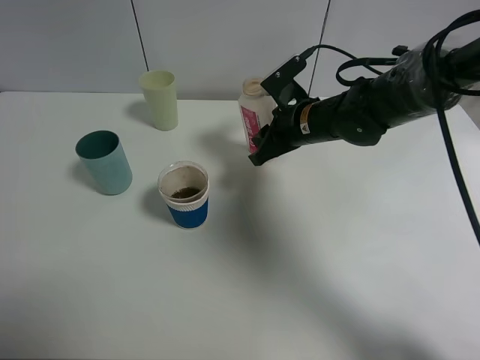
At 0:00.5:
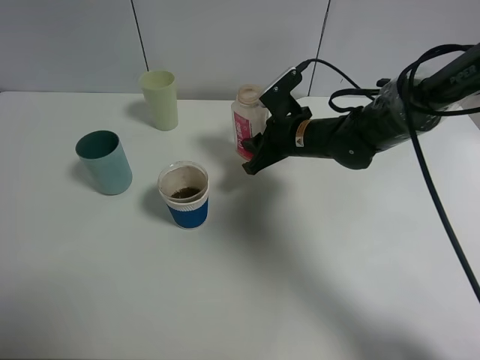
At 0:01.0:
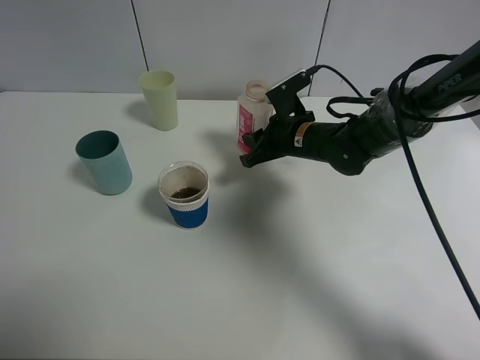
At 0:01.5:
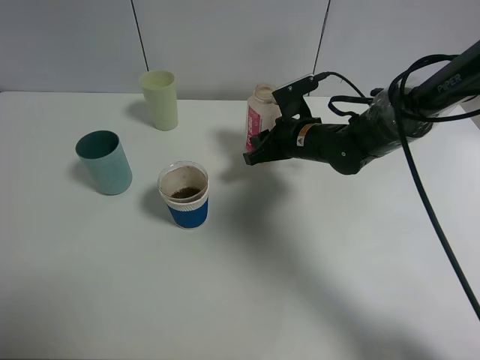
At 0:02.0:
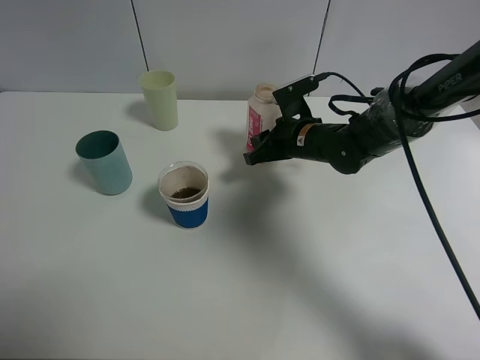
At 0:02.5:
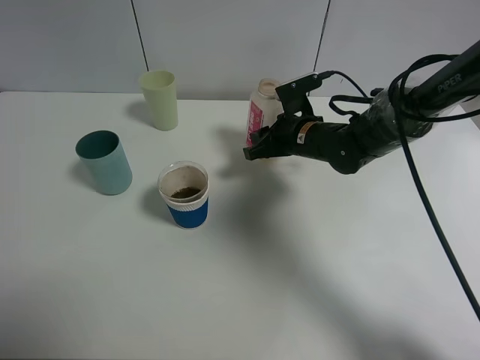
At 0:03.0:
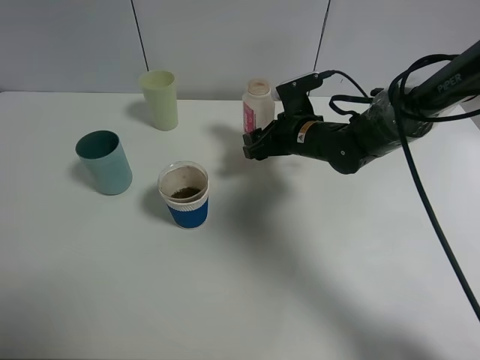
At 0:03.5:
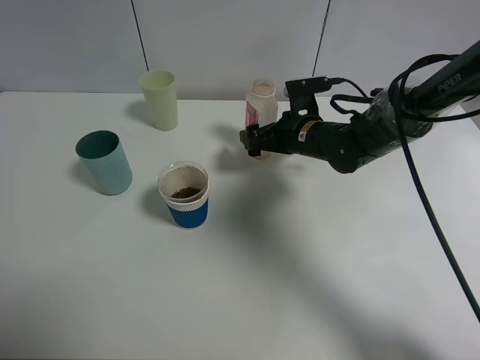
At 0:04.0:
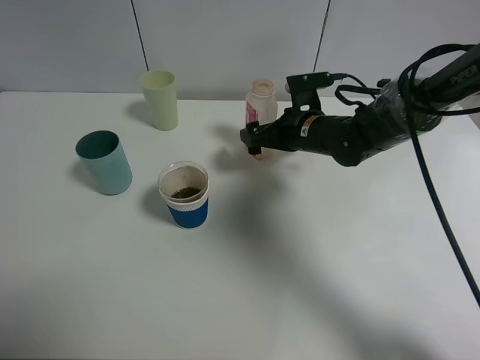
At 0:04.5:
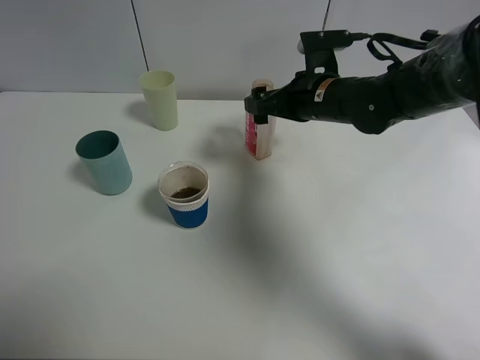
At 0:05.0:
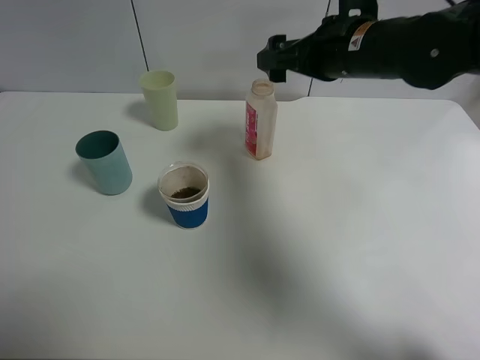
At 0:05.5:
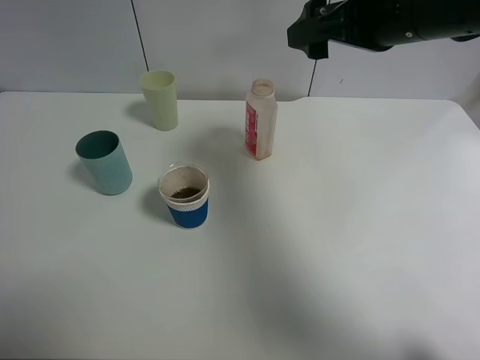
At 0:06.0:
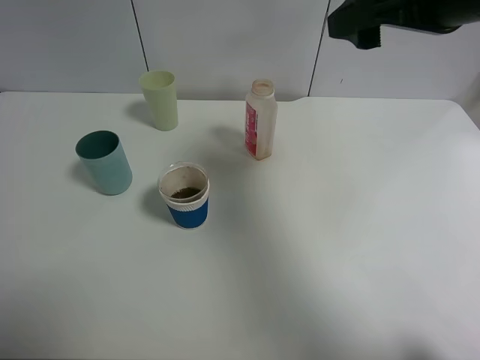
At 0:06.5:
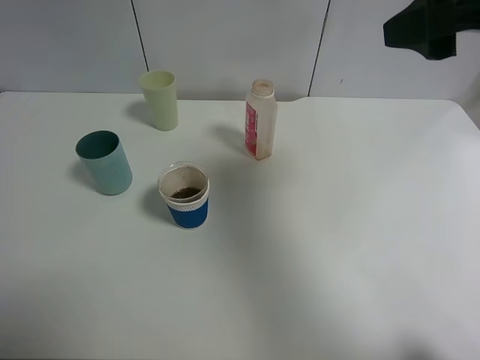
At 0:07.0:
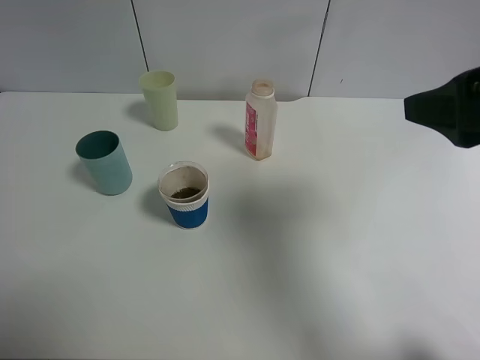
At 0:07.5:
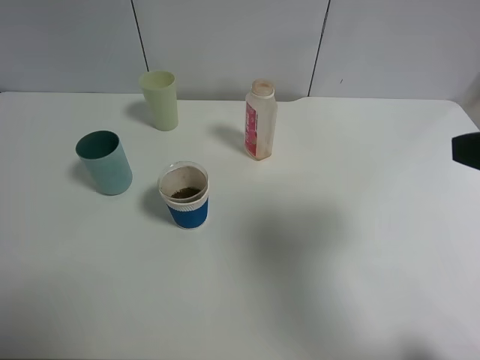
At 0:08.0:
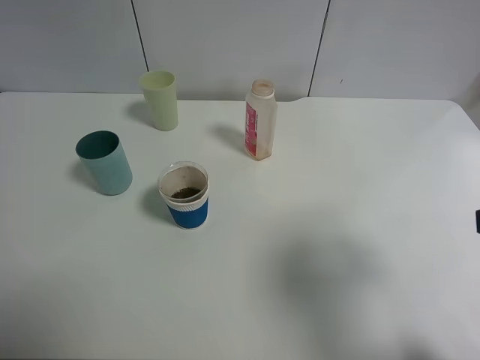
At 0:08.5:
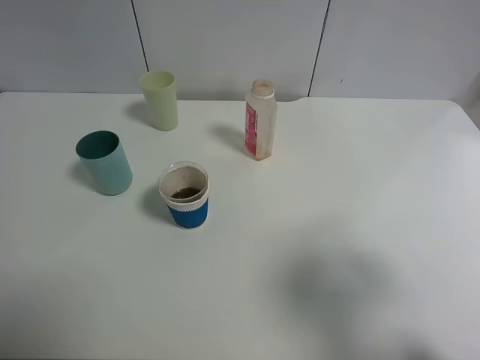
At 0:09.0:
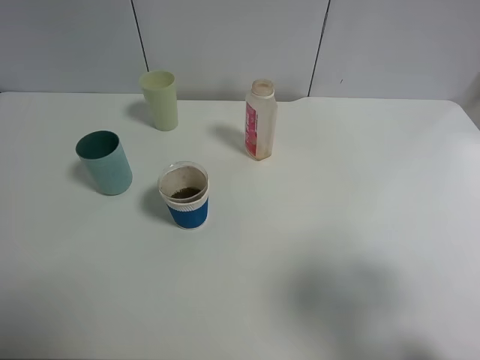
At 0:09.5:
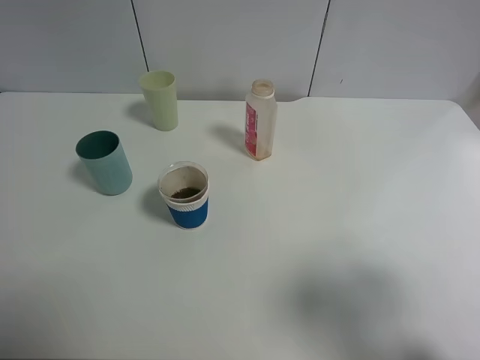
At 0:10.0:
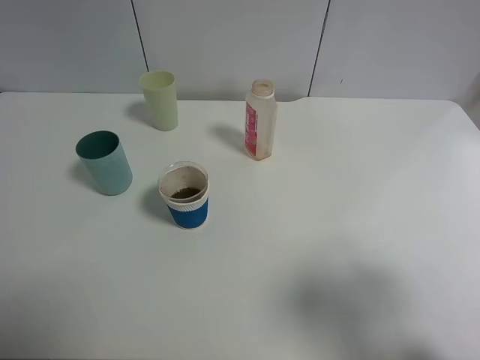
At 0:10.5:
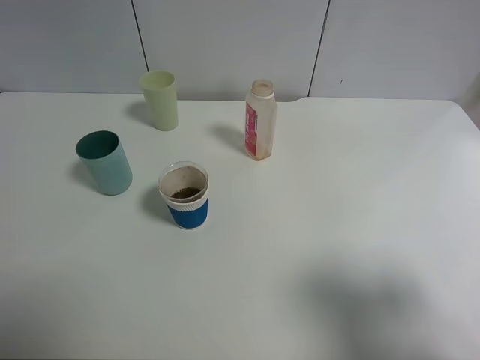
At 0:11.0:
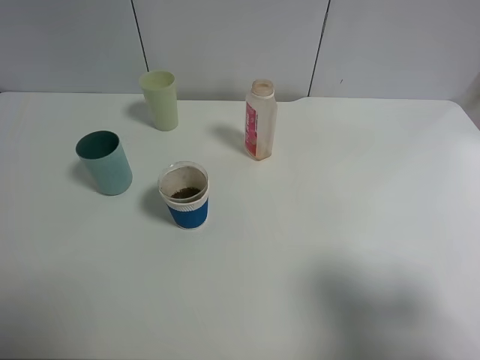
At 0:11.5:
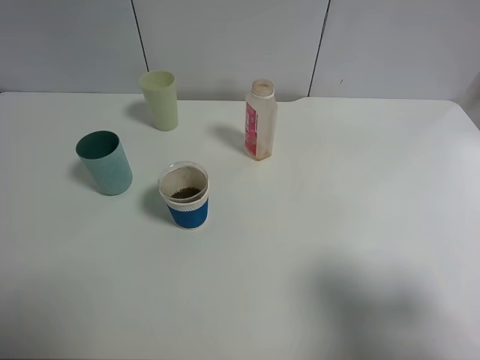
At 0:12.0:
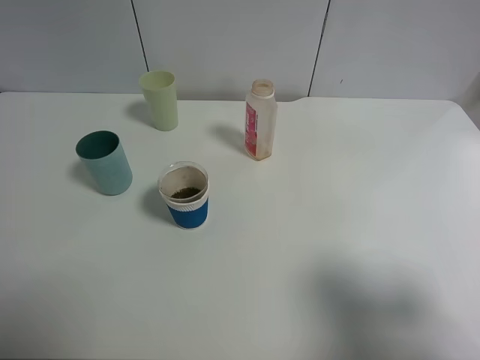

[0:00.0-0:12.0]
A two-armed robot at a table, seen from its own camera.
Task of the whole recording: use a clamp to hold the bottle of the drink, pour the beverage into a random cup, then clamp the cup containing the drink and pour the drink into another random cup.
Step, 0:00.0 to 0:04.0: Place the drink bottle on the table with right gripper.
0:00.0 to 0:02.0: The grippers stay close to where they were, moving slightly.
0:02.0 to 0:04.0: The right gripper opens its fingers.
0:04.0 to 0:06.0: The right gripper is displaced upward and backward by some 25 cm.
0:06.0 to 0:08.0: The right gripper shifts some 20 cm backward and to the right.
0:08.0 to 0:10.0: The right gripper shifts by approximately 5 cm.

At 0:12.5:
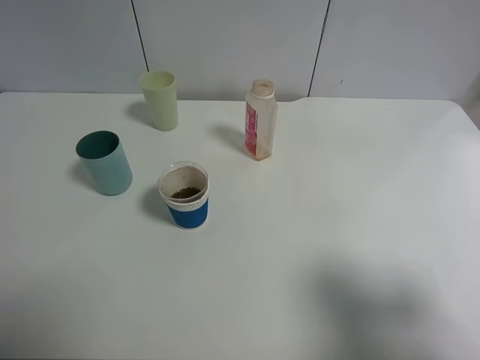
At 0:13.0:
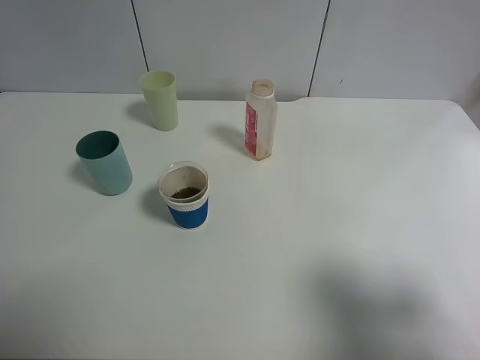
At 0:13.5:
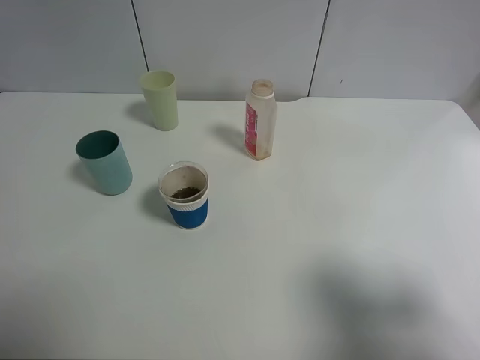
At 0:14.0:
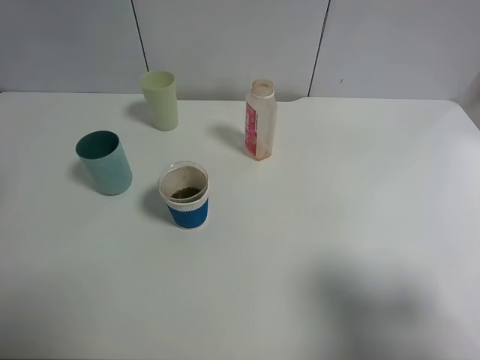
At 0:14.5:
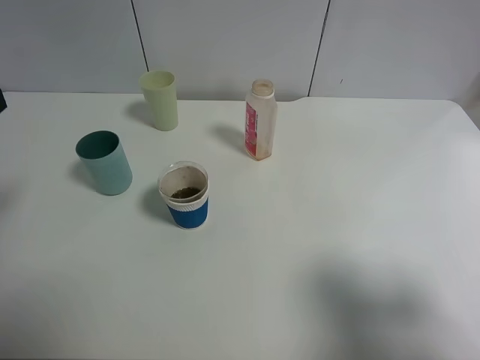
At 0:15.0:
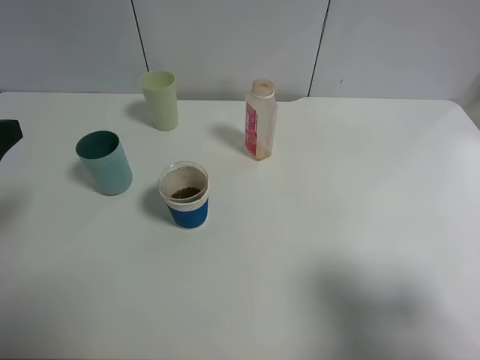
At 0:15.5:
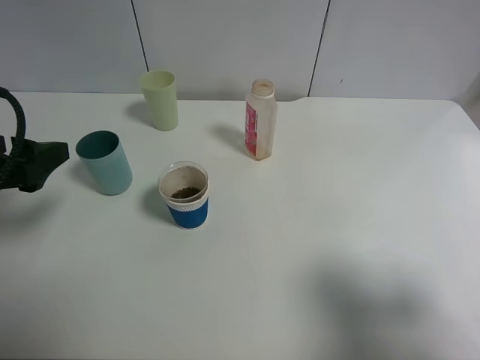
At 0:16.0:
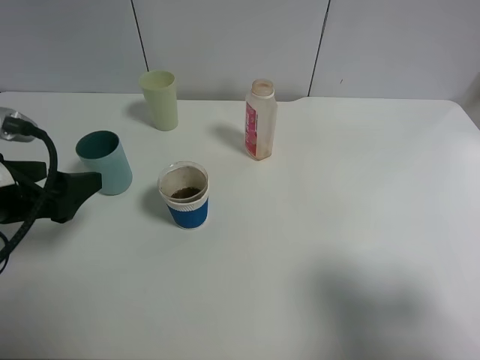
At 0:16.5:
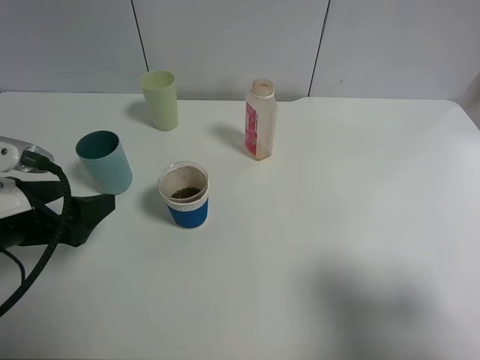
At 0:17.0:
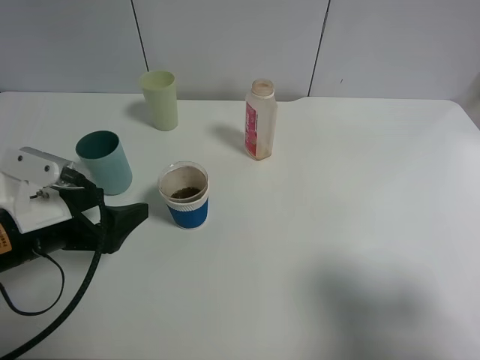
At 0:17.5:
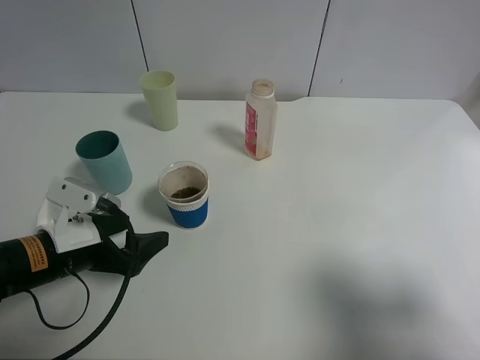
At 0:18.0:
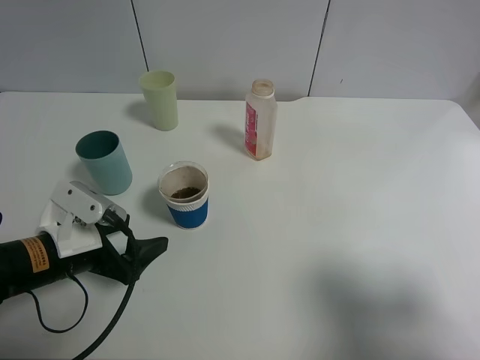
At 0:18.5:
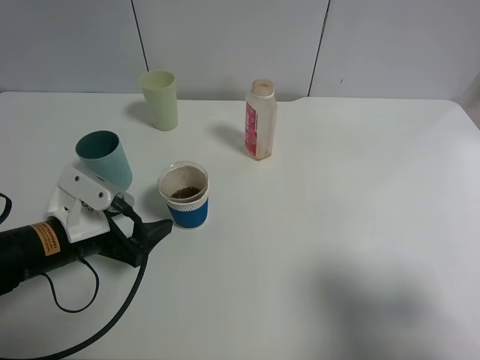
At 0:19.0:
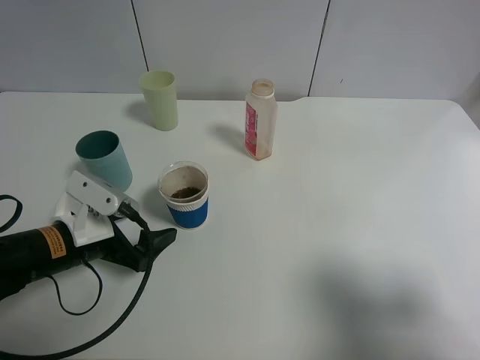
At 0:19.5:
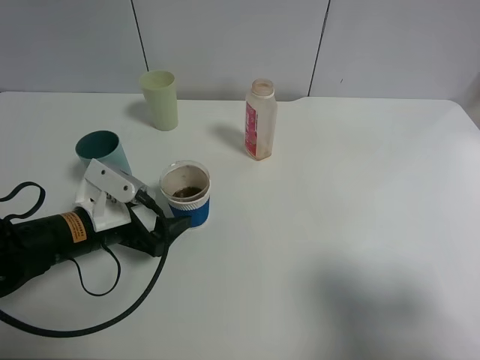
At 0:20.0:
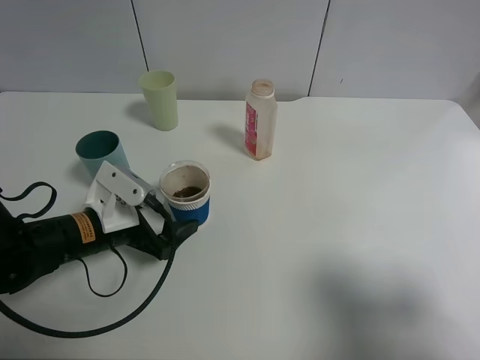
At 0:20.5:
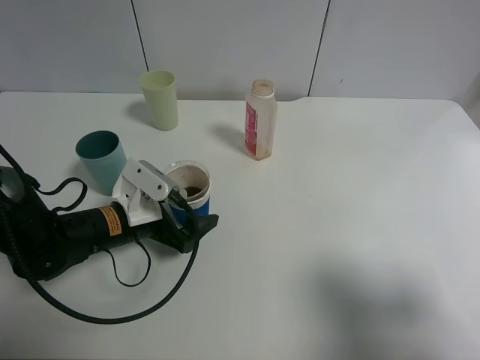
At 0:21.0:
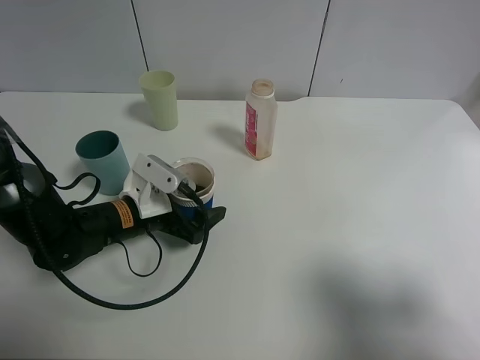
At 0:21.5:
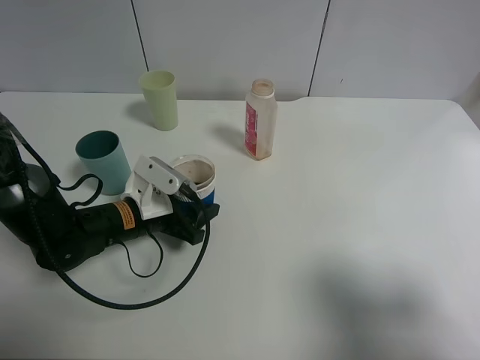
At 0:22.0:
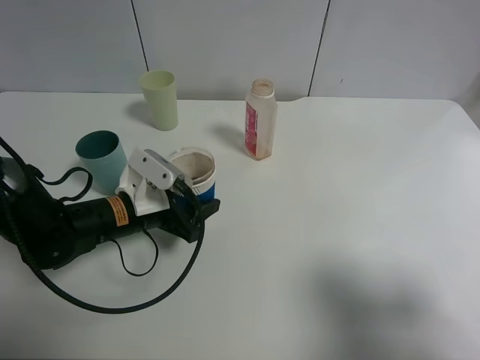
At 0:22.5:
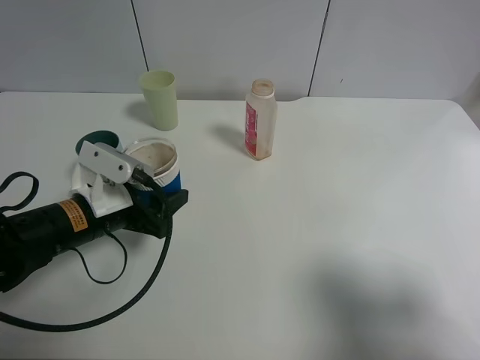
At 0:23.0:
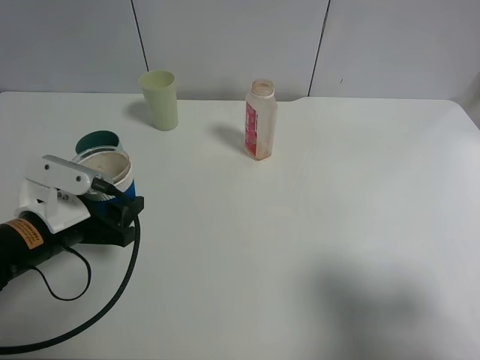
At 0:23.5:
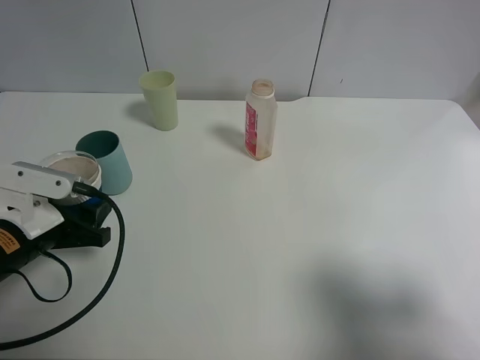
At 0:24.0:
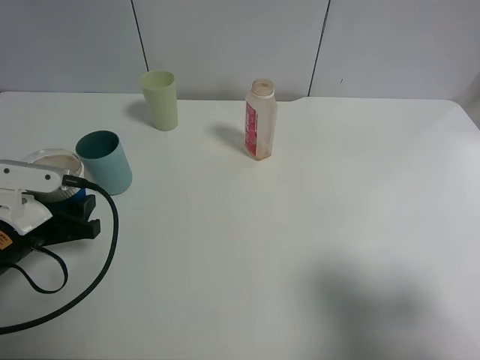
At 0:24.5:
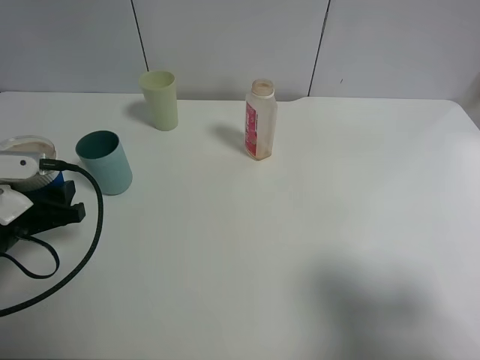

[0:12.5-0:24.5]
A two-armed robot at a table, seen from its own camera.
Task of the whole recording: use a clamp to hold the bottle of the drink, pour the beverage into a random cup, then clamp the cup containing the drink and pour the drink into another random cup.
Step, 0:12.5 to 0:22.0: Pick up the paper cup with left gripper.
0:14.5 to 0:16.5: The left gripper travels downward and to the right by some 10 cm.
0:16.5 to 0:18.5: The left gripper shifts roughly 5 cm downward.
0:18.5 to 0:20.5: The left gripper changes place by some 5 cm.
0:20.5 to 0:22.5: The left gripper ends up roughly 5 cm from where it was, and closes.
0:22.5 to 0:24.5: The left gripper shifts roughly 10 cm to the left.

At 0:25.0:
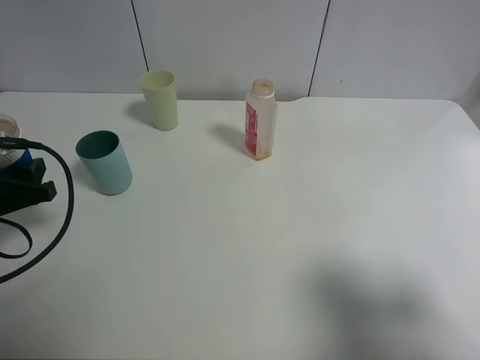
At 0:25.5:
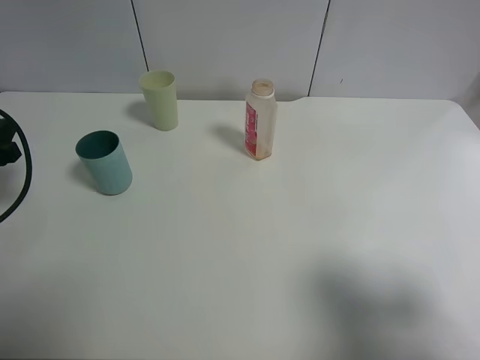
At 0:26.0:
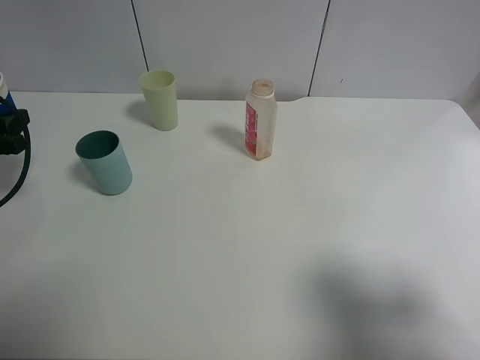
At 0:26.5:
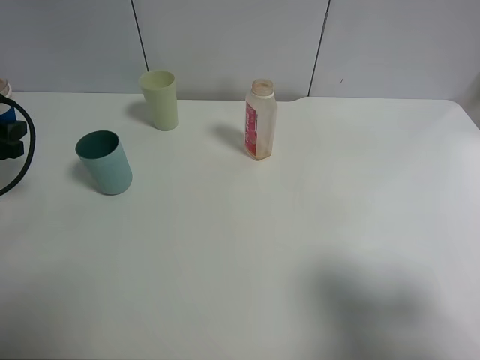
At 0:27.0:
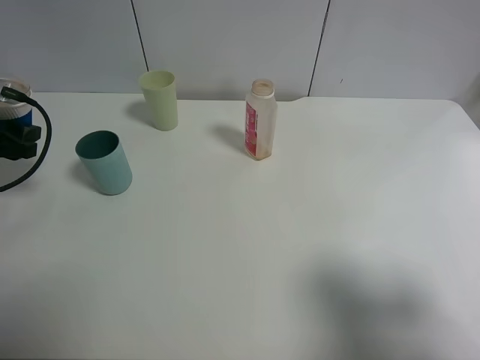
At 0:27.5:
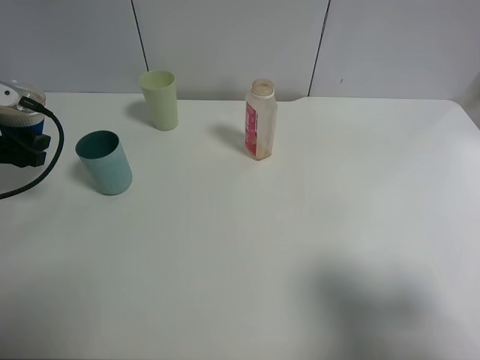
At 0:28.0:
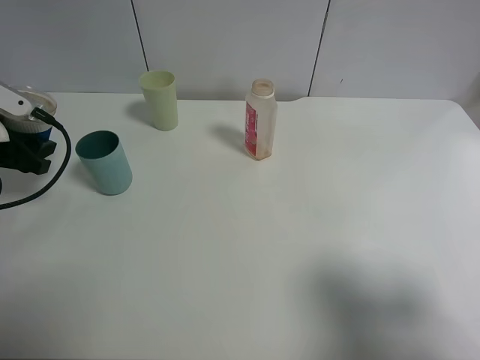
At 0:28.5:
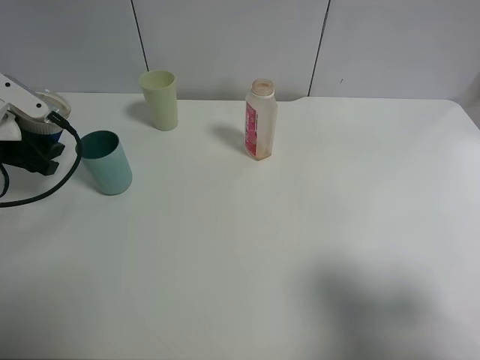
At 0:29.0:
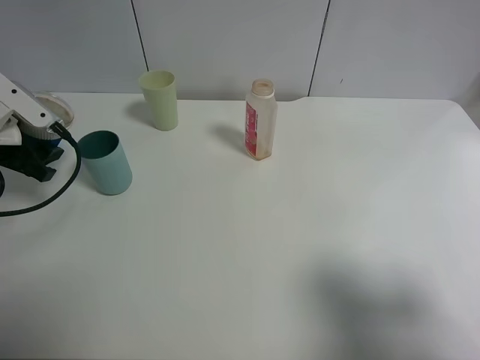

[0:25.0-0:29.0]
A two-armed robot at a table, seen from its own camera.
Task of the whole recording: use a clamp to hold the bottle of the drink, pour the beverage into a random cup, then clamp the cup containing the drink and pour the drink into another random cup.
0:25.0 to 0:27.0: The left gripper moves forward, approximately 10 cm.
